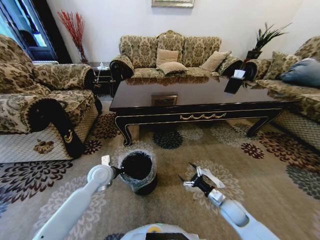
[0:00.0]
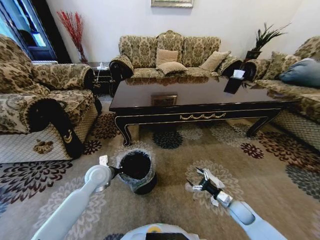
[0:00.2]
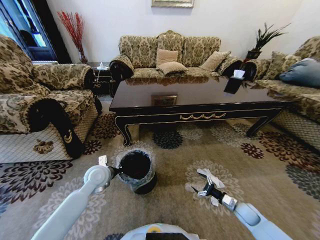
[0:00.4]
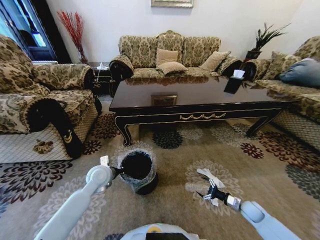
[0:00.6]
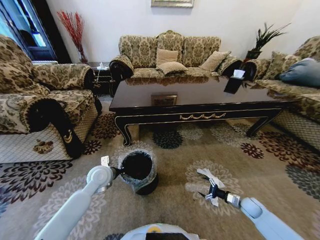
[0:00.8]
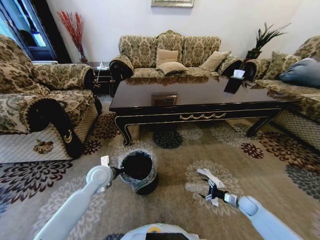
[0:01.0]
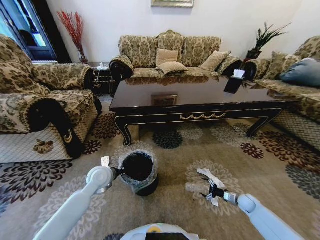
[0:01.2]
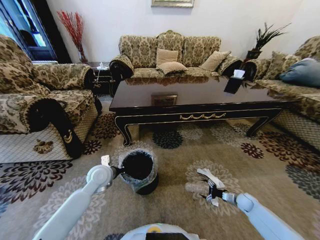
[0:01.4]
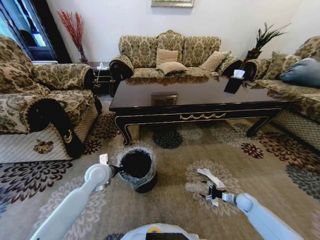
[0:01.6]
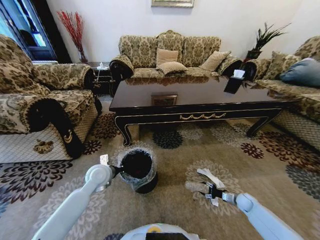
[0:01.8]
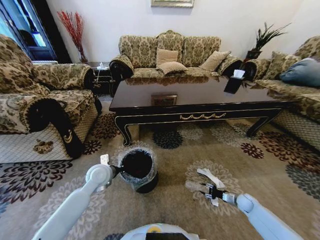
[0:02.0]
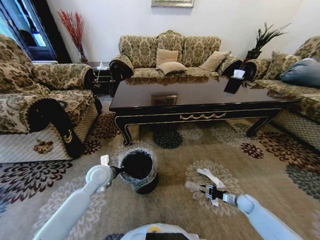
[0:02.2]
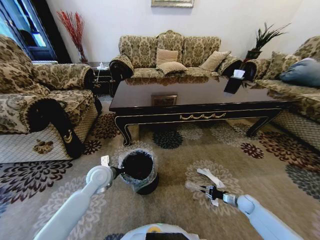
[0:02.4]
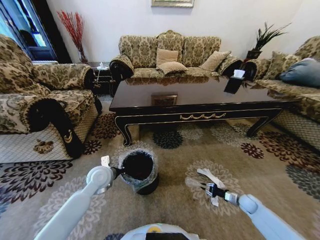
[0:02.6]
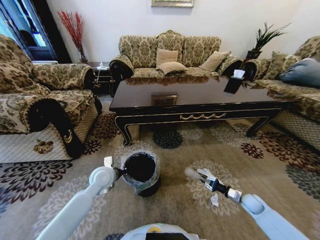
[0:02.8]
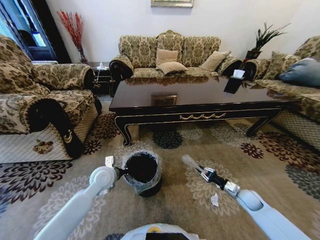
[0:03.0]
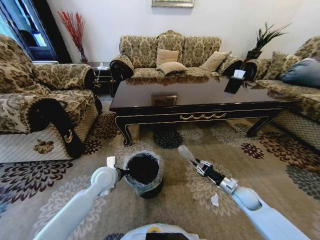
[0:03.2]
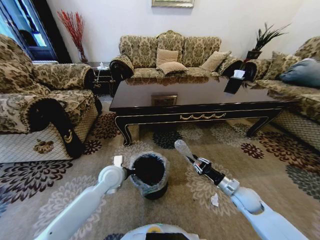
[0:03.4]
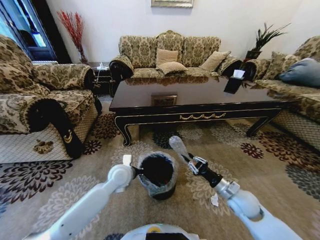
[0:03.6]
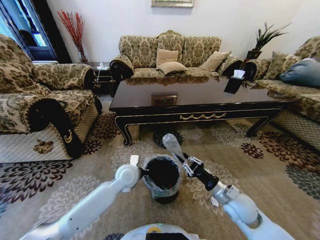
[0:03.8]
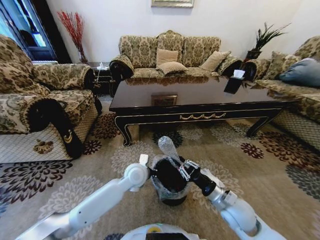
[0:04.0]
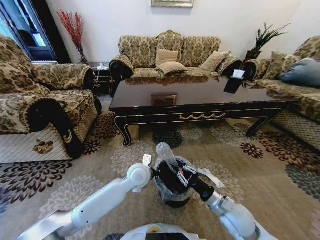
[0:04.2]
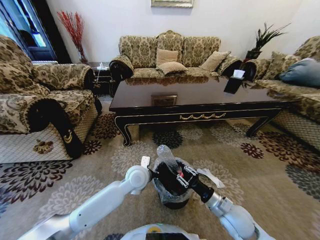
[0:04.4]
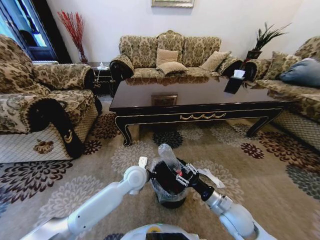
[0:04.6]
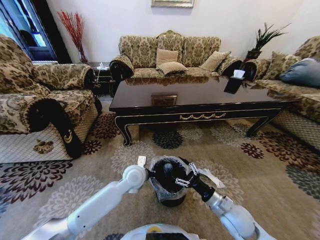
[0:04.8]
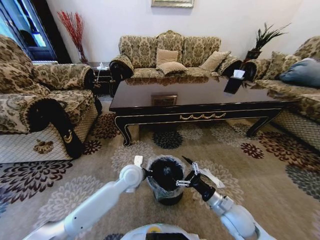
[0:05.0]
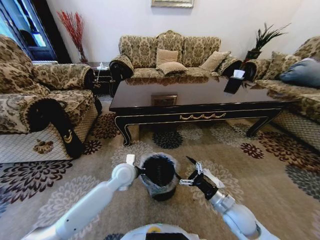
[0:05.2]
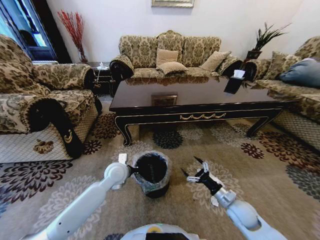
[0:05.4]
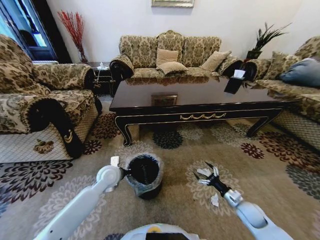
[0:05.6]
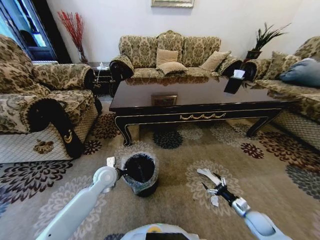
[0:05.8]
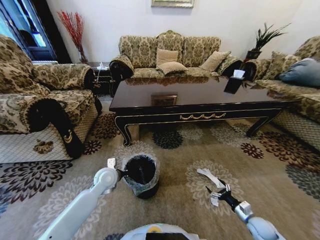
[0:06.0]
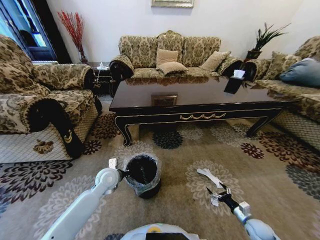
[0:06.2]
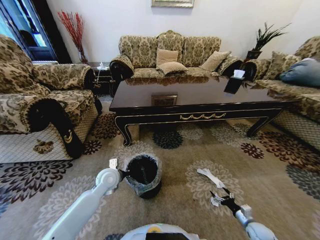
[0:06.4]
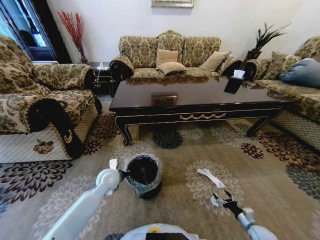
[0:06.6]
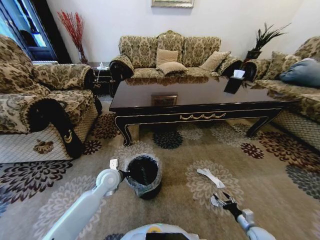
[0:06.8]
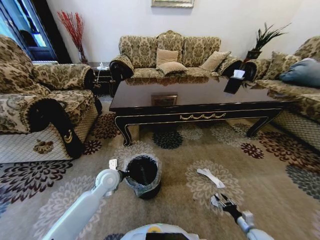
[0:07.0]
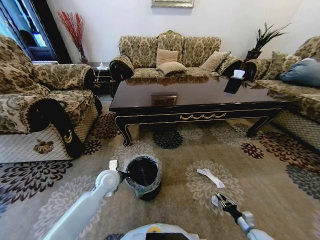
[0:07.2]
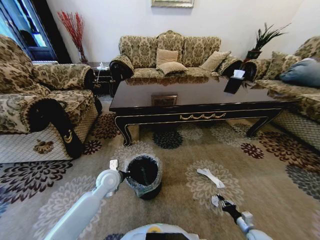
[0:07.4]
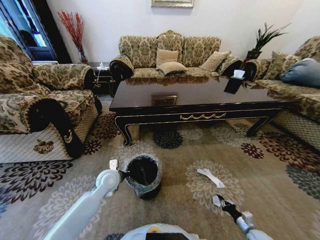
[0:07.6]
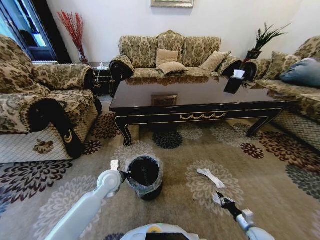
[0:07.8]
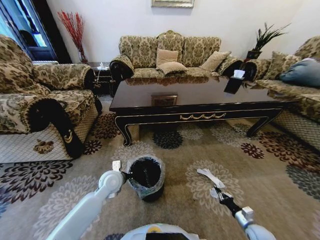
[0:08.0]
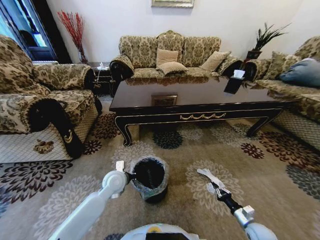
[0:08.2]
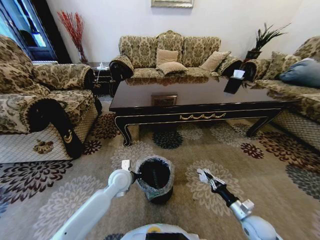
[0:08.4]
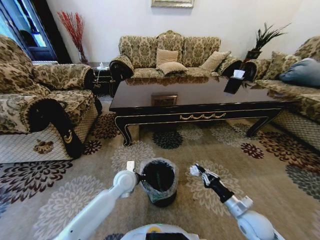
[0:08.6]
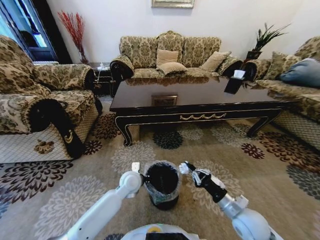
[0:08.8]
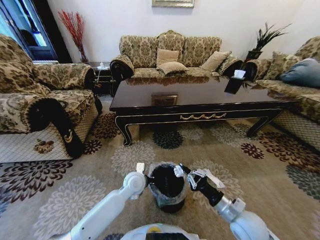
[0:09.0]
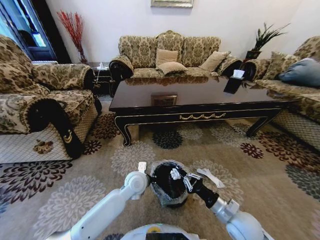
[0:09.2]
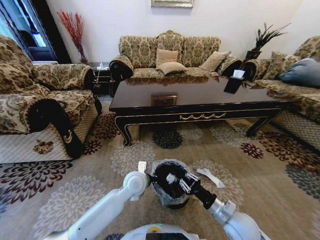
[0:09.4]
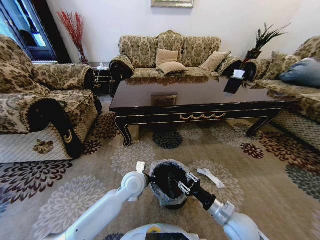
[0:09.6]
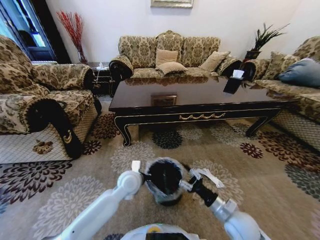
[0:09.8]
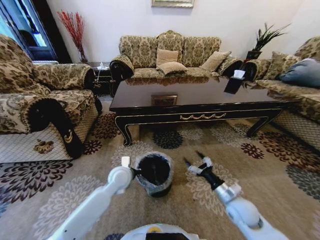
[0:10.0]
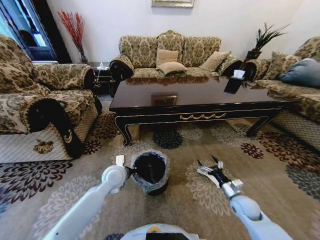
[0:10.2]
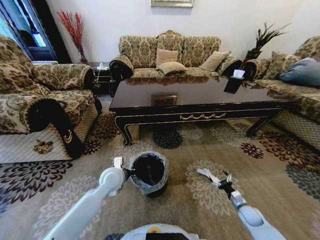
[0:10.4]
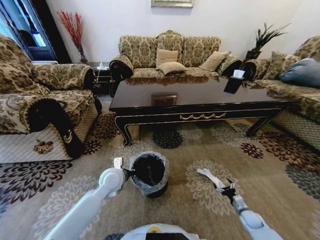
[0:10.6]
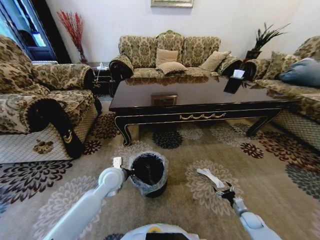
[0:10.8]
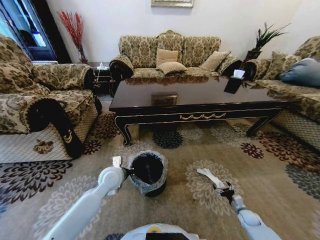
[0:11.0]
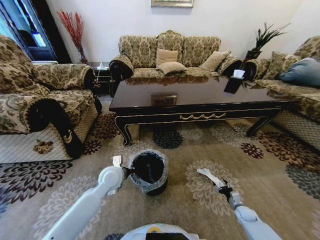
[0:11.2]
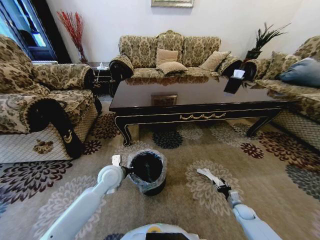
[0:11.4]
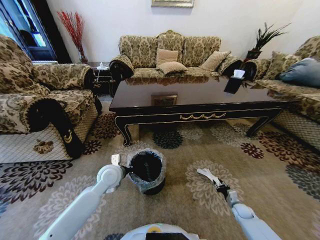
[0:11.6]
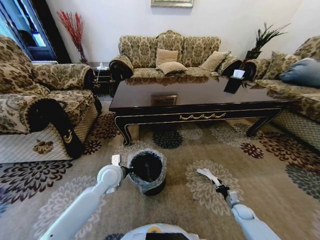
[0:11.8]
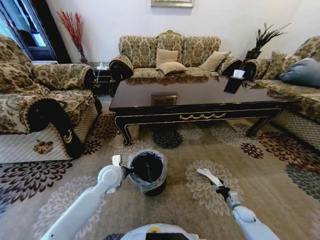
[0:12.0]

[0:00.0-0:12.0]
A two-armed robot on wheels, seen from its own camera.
Task of the whole recording: Move to the front of the table and pick up the trash from the floor, then place it into the trash bin.
0:00.0 to 0:01.6: The right gripper is displaced to the right and downward by roughly 20 cm.
0:01.6 to 0:03.0: The right gripper travels upward and to the left by about 10 cm, and closes its fingers.
0:03.0 to 0:04.4: The left gripper is displaced to the right by approximately 15 cm. Meanwhile the right gripper moves to the left, upward and backward, approximately 25 cm.
0:04.4 to 0:06.0: The right gripper shifts approximately 25 cm to the right and downward, and opens. The left gripper goes roughly 15 cm to the left.
0:06.0 to 0:07.6: The right gripper is displaced downward by approximately 5 cm, and closes up.
0:07.6 to 0:09.0: The right gripper goes some 30 cm upward and to the left. The left gripper travels to the right by about 10 cm.
0:09.0 to 0:10.4: The left gripper shifts some 10 cm to the left, while the right gripper travels downward and to the right by some 25 cm, and opens its fingers.
0:10.4 to 0:12.0: The right gripper closes.

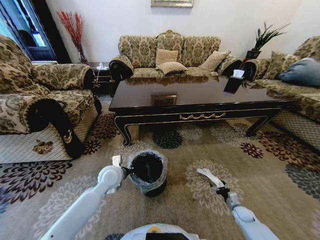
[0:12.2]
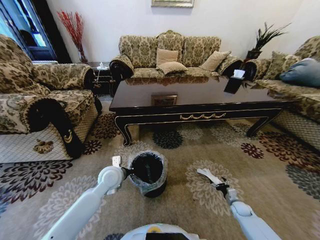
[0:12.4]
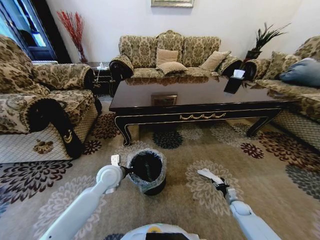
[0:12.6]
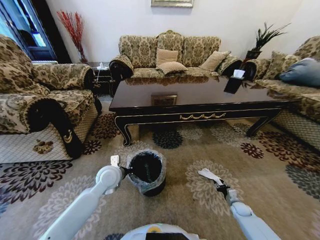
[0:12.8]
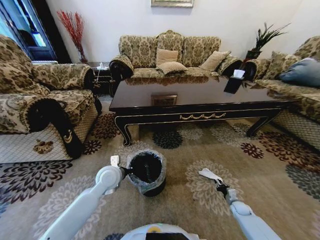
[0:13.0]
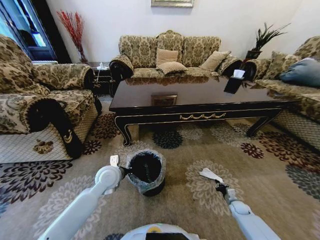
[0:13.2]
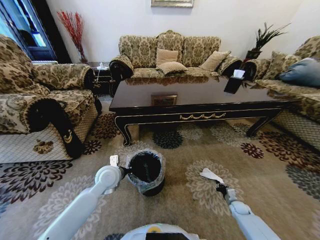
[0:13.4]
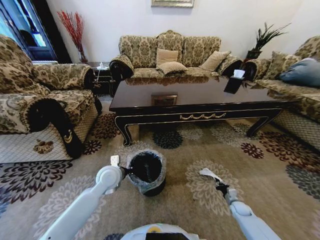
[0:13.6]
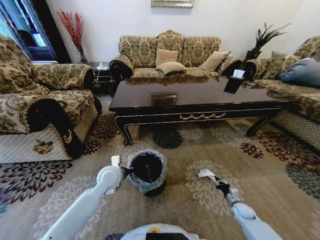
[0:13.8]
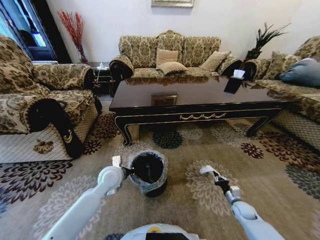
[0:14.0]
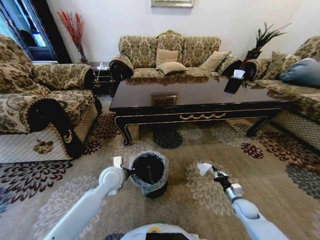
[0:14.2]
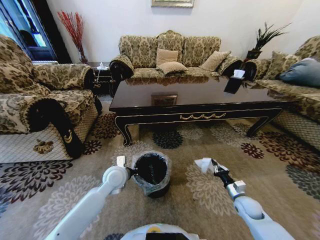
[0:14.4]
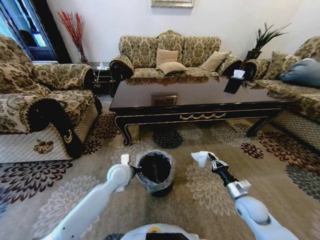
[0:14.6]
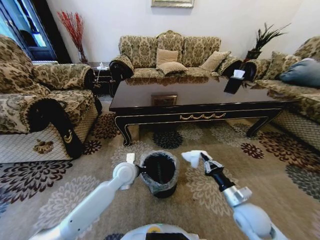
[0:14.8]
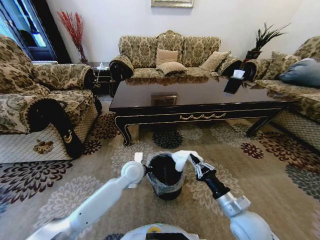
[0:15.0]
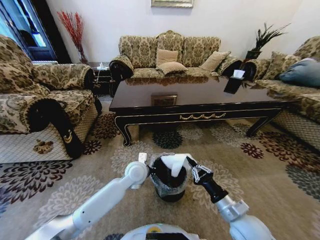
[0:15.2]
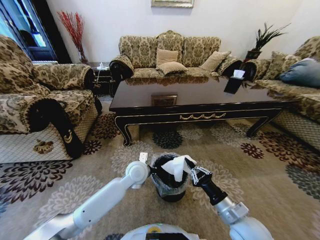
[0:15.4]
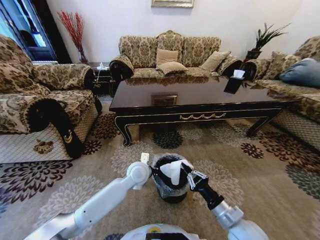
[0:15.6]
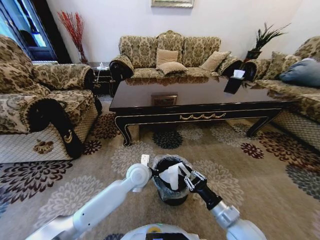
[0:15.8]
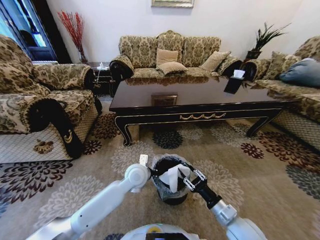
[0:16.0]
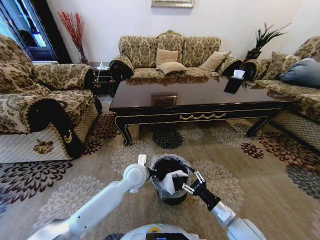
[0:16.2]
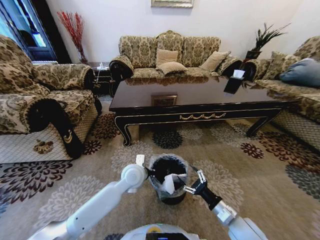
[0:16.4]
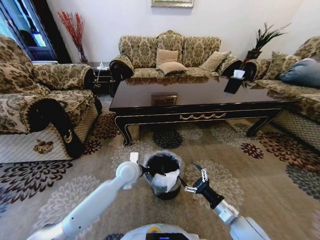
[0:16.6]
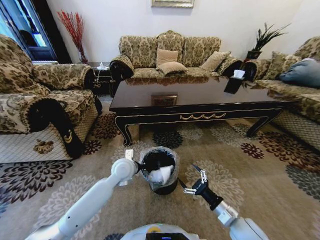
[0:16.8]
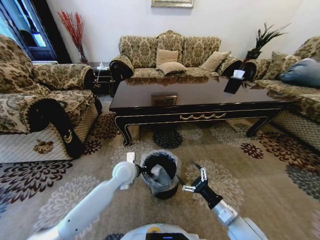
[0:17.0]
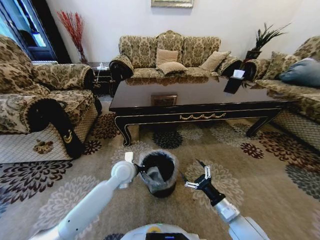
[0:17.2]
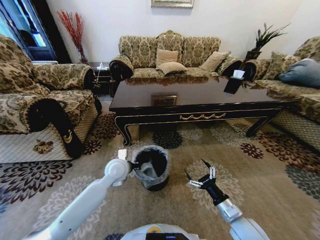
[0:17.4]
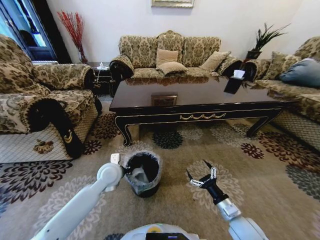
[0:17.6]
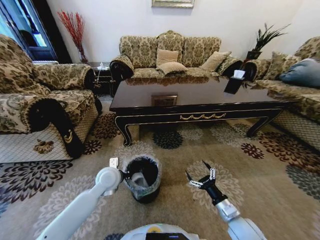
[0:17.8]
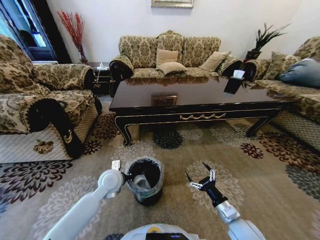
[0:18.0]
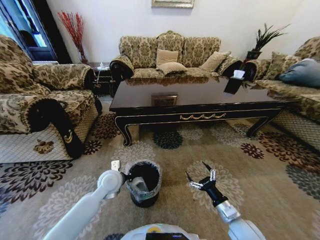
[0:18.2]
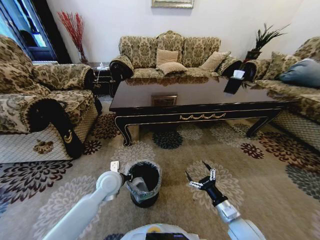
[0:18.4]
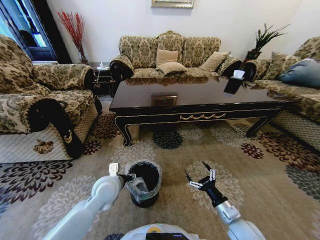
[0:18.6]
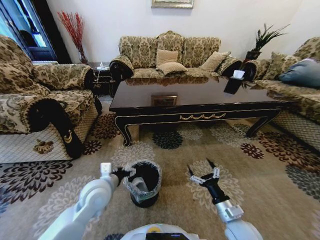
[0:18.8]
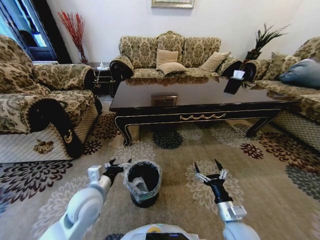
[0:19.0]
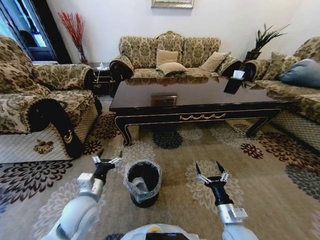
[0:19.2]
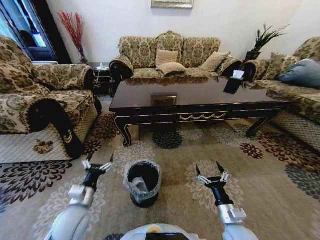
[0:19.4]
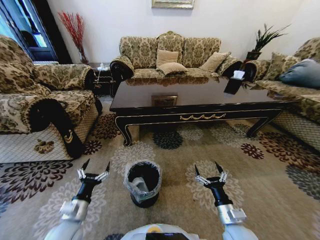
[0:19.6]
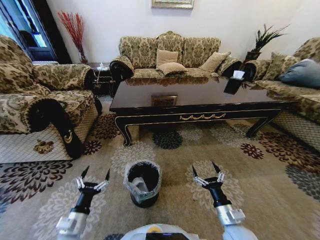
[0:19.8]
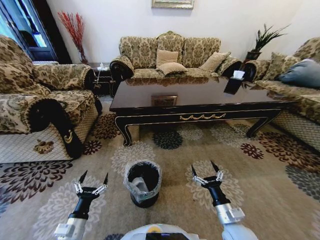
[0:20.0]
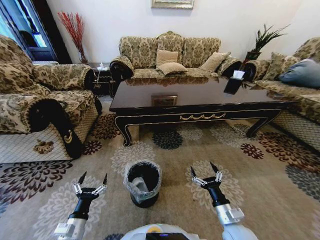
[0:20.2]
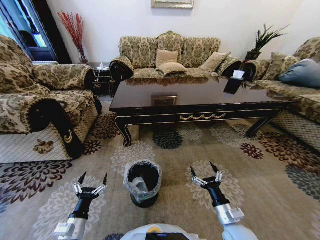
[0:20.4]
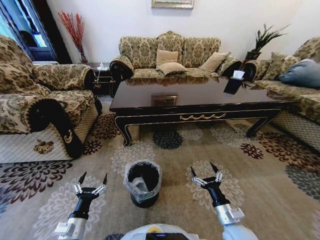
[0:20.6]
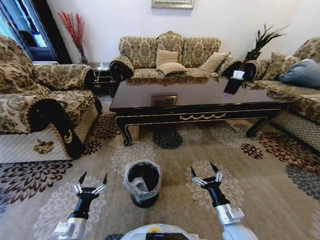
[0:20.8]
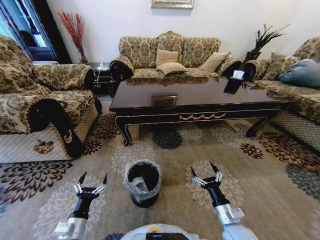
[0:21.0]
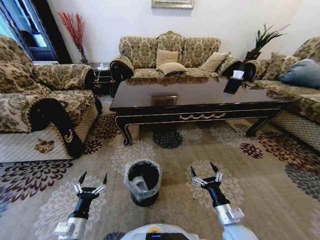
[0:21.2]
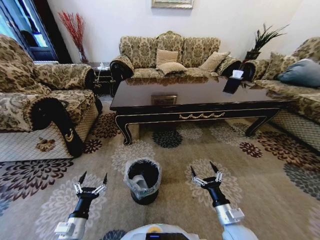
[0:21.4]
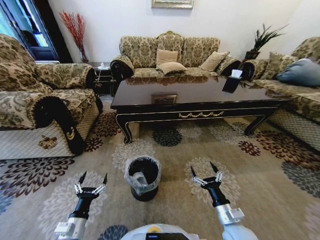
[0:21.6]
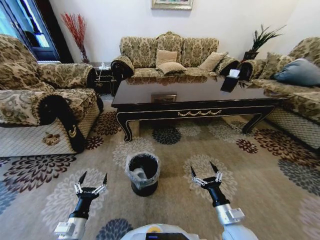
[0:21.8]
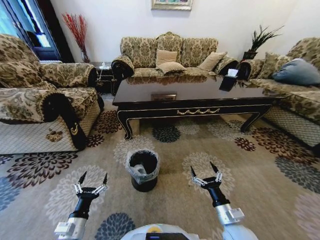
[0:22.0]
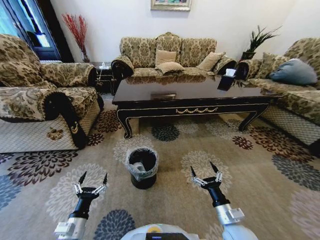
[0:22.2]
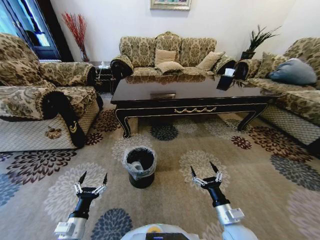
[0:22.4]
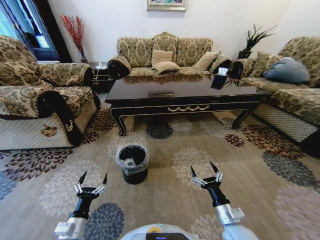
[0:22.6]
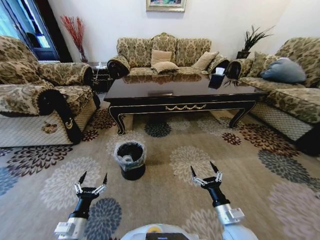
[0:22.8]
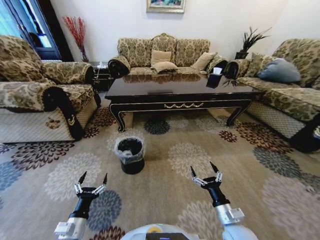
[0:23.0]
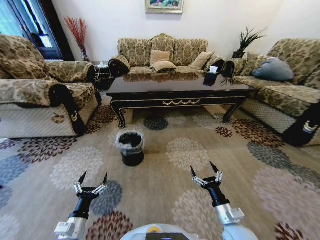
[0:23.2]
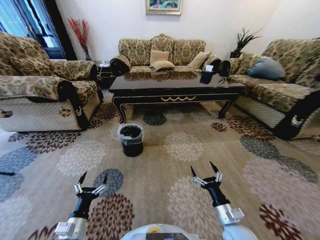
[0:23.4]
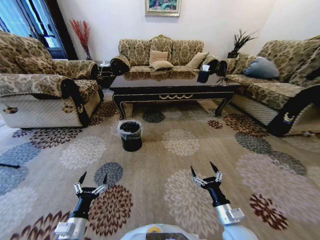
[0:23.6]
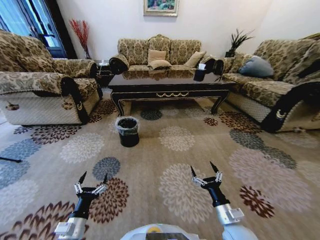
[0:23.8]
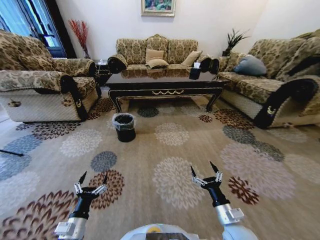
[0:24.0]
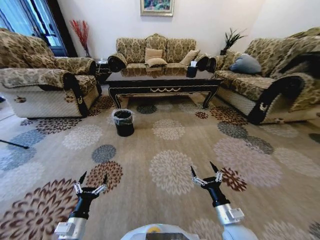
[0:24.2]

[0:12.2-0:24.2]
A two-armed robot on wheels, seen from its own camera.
Task of the whole recording: Move to the front of the table and pick up the trash from the floor, then place it into the trash bin.
0:12.2 to 0:13.8: The right gripper closes.
0:13.8 to 0:15.2: The right gripper travels upward and to the left by about 35 cm; the left gripper moves to the right, some 10 cm.
0:15.2 to 0:16.6: The right gripper moves approximately 5 cm, and opens up.
0:16.6 to 0:18.2: The left gripper moves to the left, about 5 cm.
0:18.2 to 0:19.8: The left gripper travels backward and to the left by about 25 cm, and opens up.
0:19.8 to 0:21.2: The grippers stay close to where they were, moving slightly.
